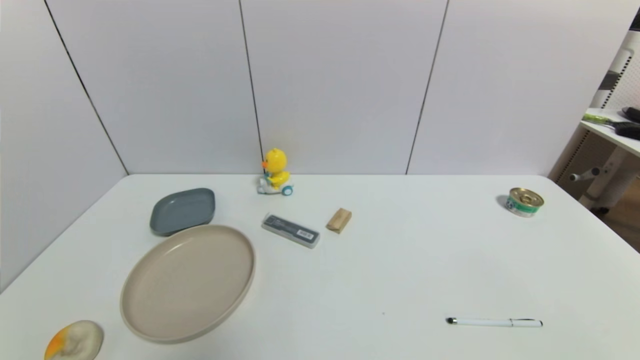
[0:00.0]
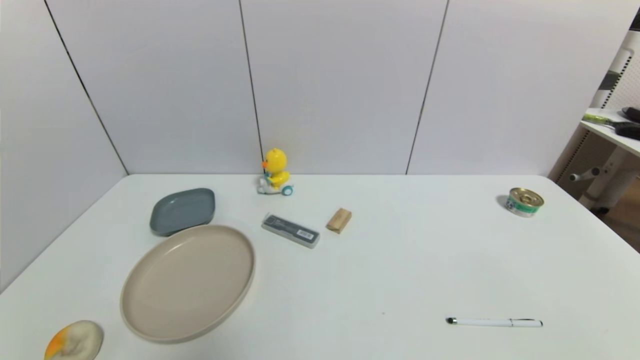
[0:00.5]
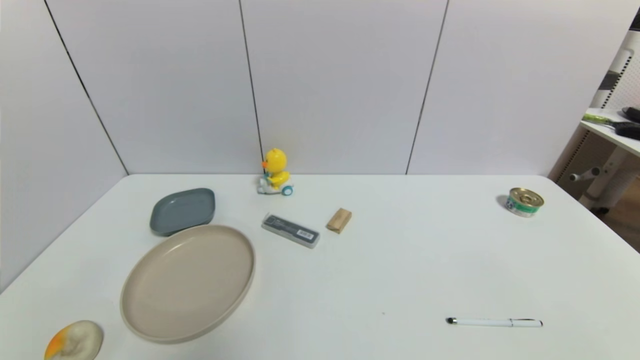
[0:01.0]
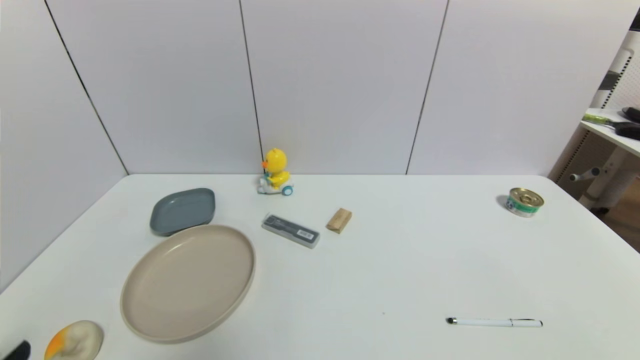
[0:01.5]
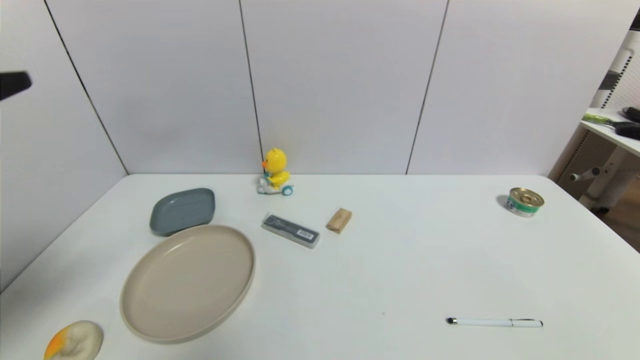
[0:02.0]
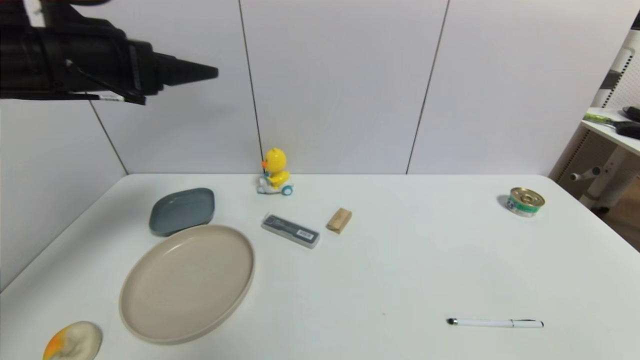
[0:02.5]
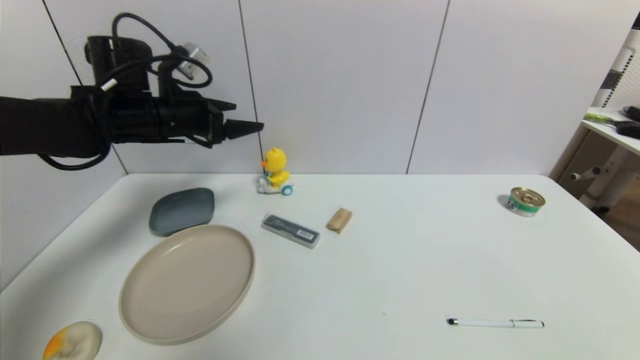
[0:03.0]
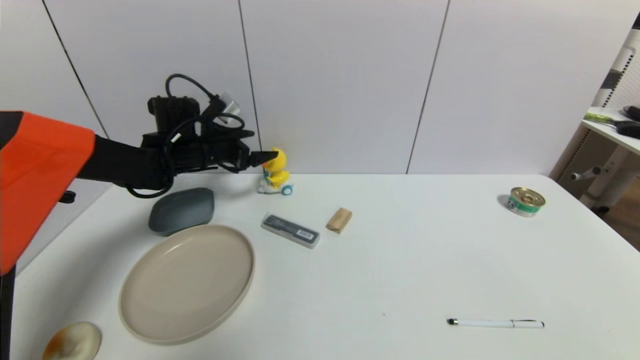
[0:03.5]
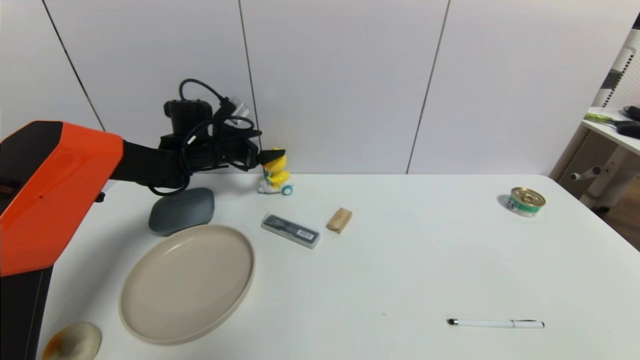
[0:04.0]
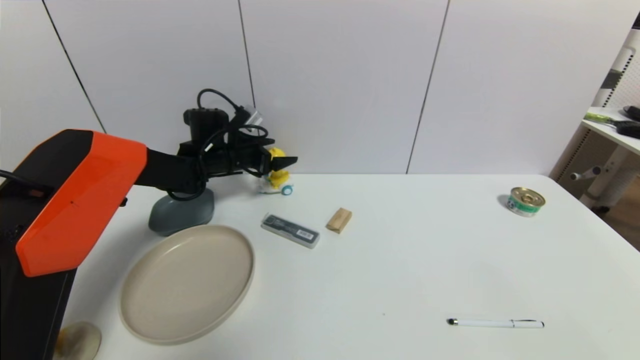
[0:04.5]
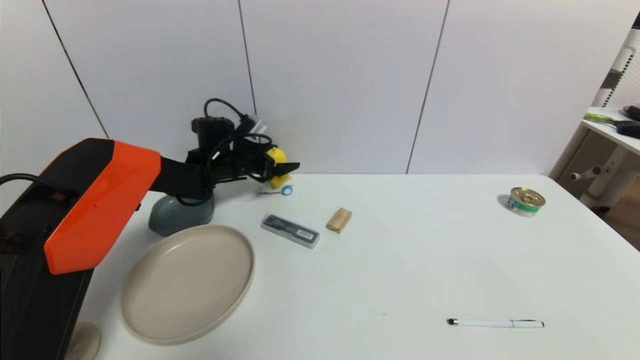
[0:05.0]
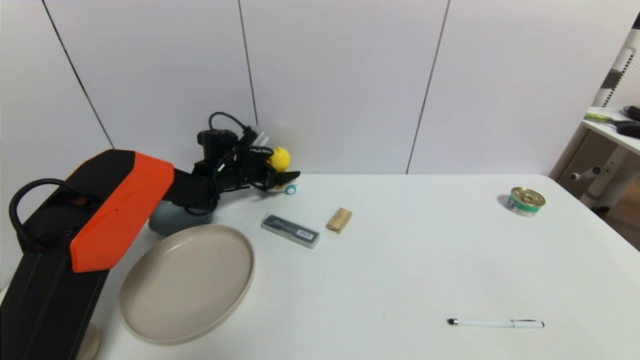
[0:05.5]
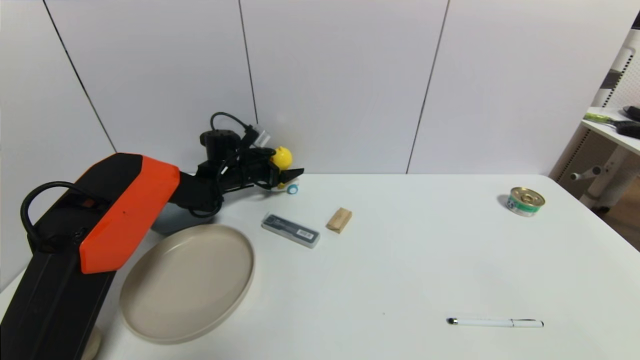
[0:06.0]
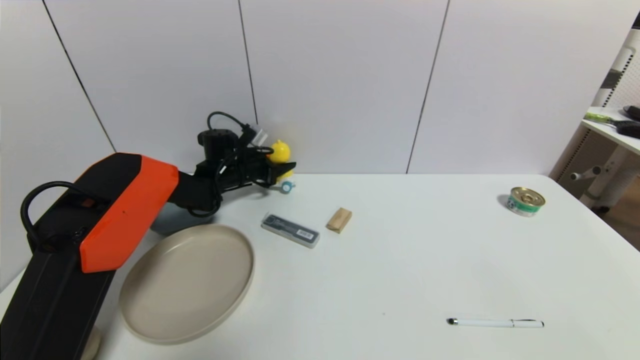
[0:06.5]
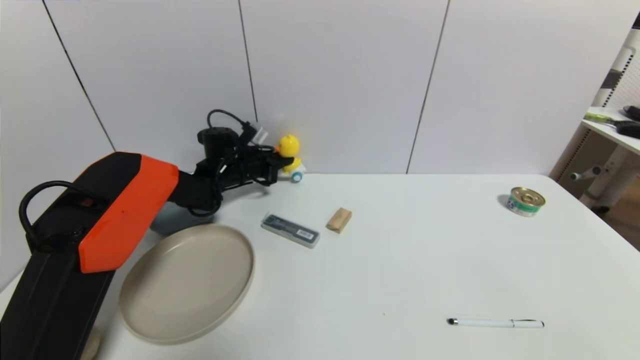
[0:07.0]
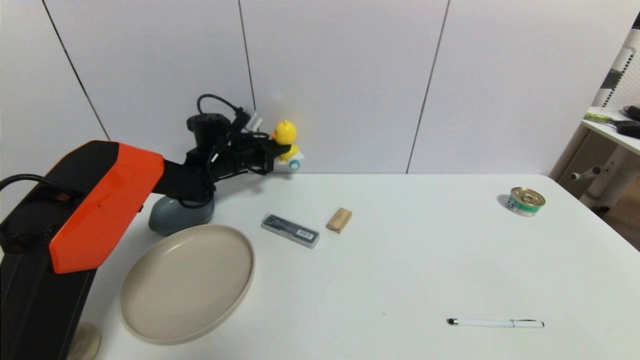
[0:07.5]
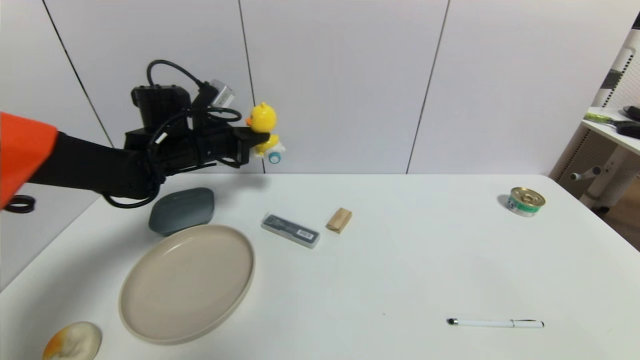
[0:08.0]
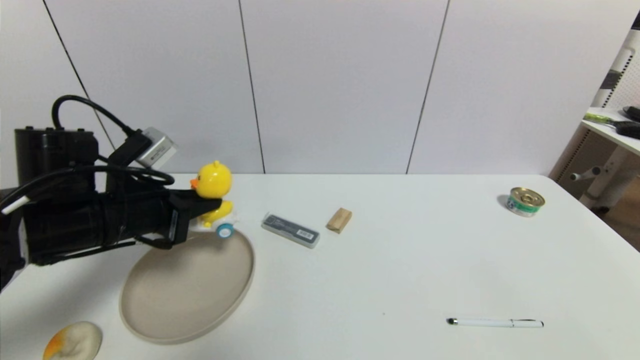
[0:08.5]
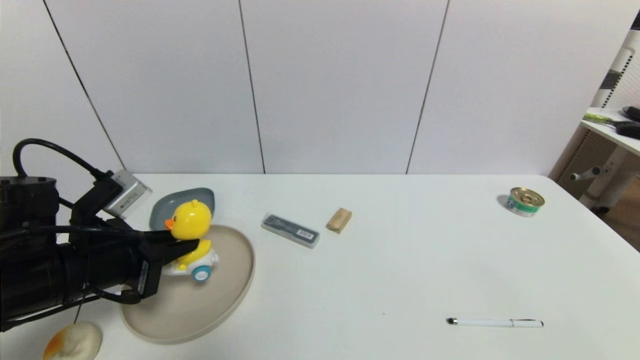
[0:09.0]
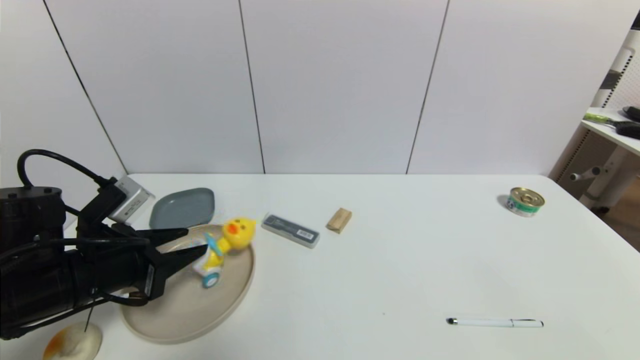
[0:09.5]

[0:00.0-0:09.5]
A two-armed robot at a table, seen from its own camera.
Task of the whole recording: use a gripper to pick the target object and place on the brown plate.
Step, 0:00.0 to 0:06.5: Grasp the duck toy with the left gripper.
0:00.0 to 0:02.0: The left gripper is displaced upward and forward by approximately 30 cm.
0:02.0 to 0:04.0: The left gripper shifts about 40 cm forward and downward.
0:04.0 to 0:05.5: The left gripper is displaced downward by about 5 cm.
0:05.5 to 0:07.5: The left gripper closes up.
0:07.5 to 0:09.5: The left gripper shifts approximately 30 cm backward, and opens up.

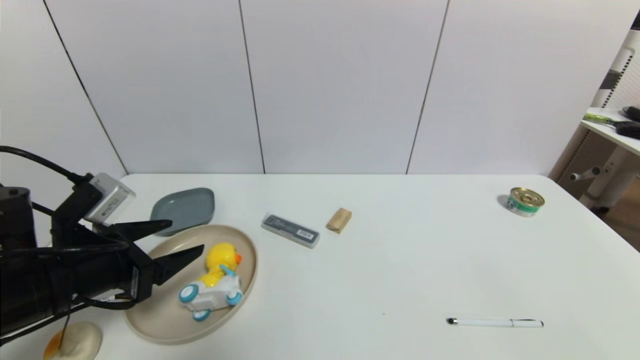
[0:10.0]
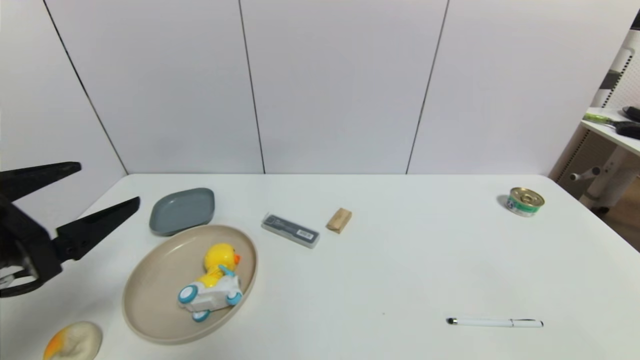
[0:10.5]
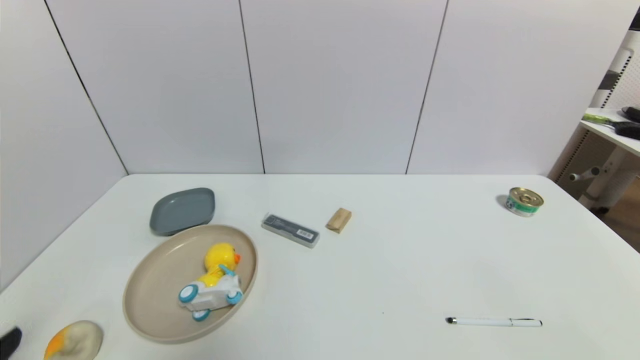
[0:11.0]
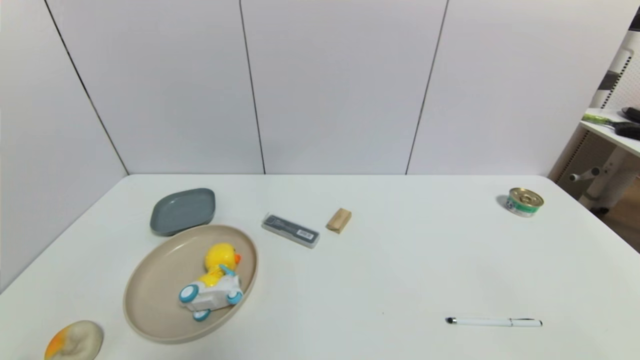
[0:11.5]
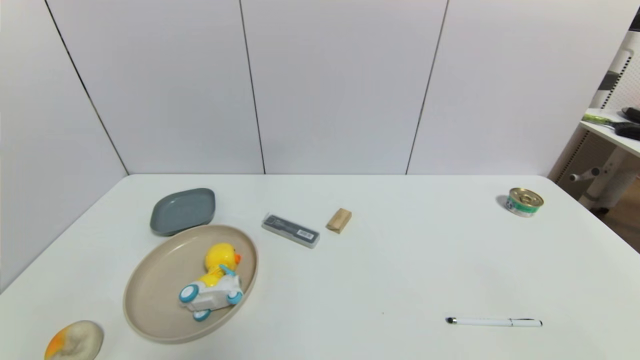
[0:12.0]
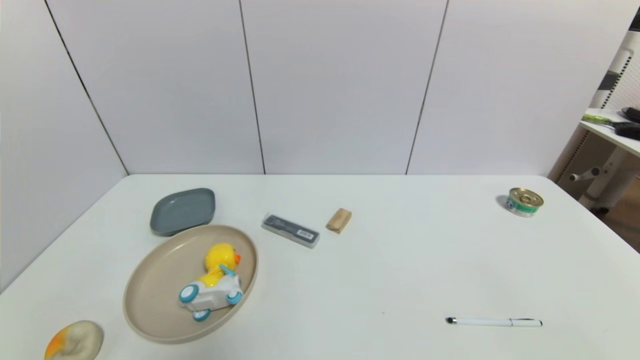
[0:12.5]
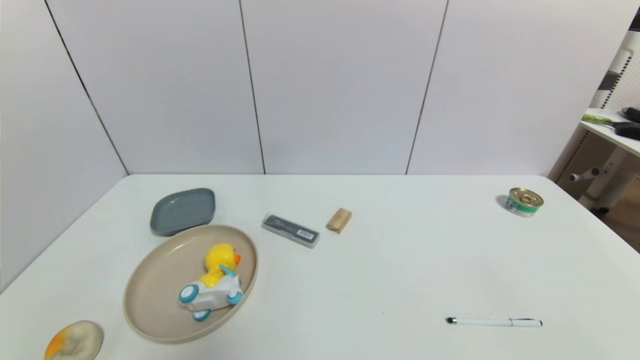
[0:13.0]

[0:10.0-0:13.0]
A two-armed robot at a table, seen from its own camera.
Task of the whole recording: use a gripper to pick the target object and place on the brown plate.
0:10.0 to 0:11.5: The left gripper travels backward and downward by approximately 20 cm.
